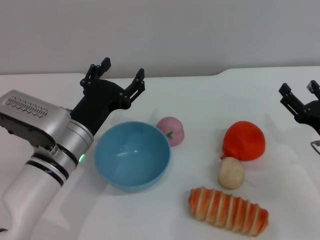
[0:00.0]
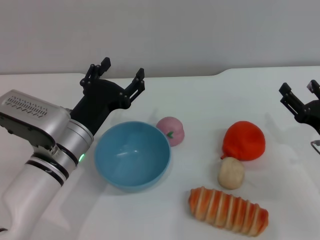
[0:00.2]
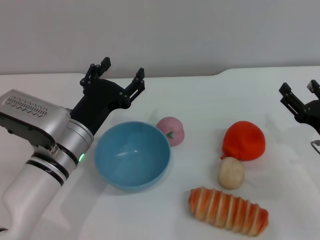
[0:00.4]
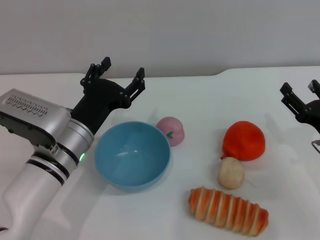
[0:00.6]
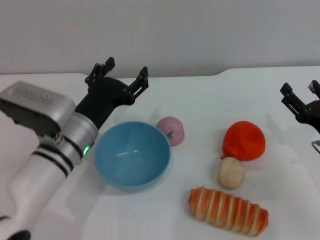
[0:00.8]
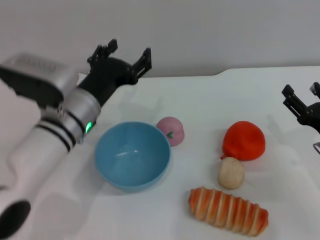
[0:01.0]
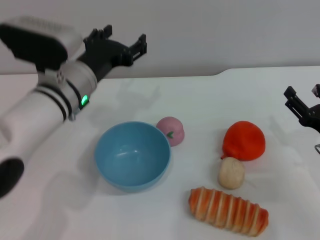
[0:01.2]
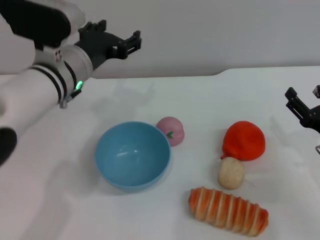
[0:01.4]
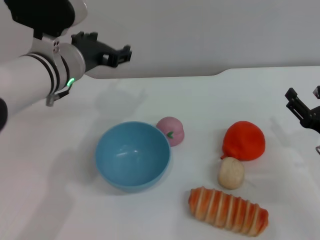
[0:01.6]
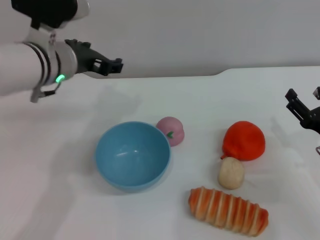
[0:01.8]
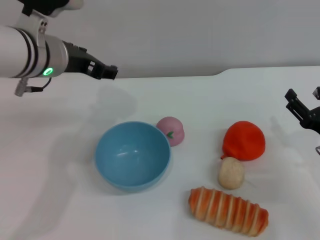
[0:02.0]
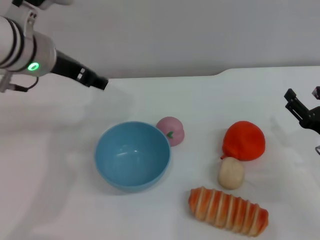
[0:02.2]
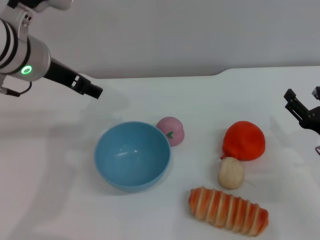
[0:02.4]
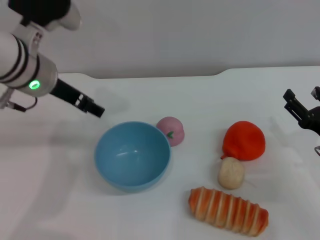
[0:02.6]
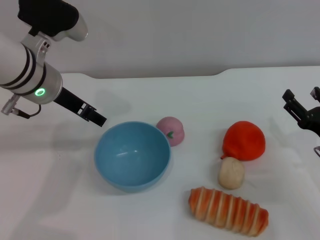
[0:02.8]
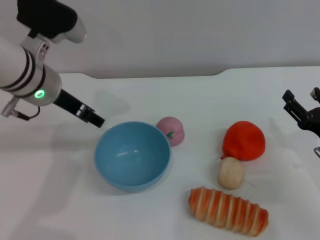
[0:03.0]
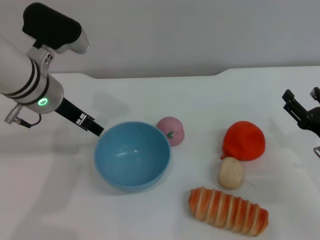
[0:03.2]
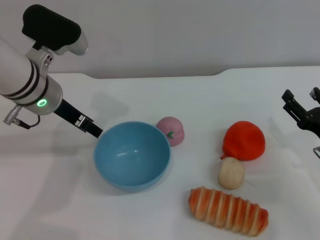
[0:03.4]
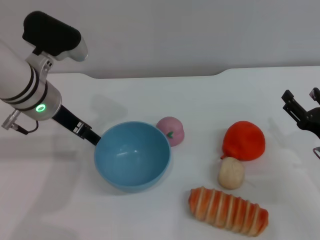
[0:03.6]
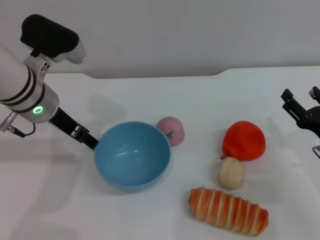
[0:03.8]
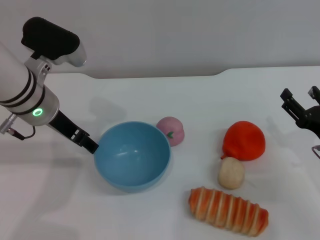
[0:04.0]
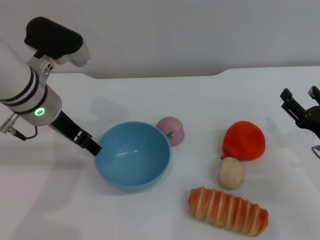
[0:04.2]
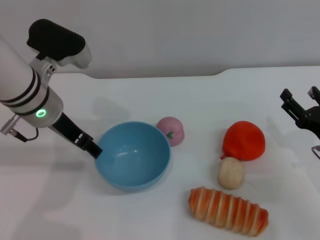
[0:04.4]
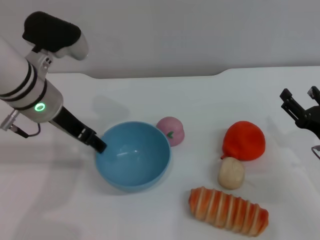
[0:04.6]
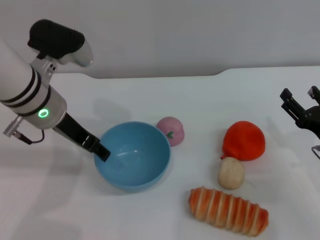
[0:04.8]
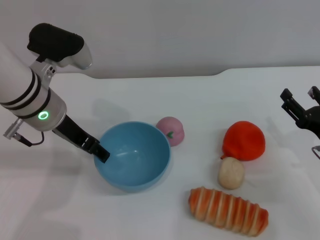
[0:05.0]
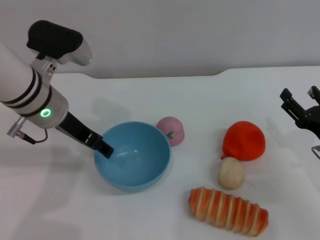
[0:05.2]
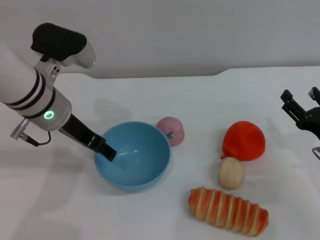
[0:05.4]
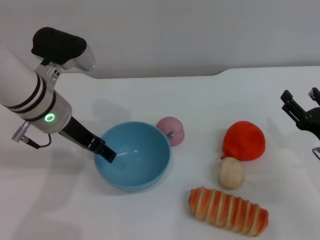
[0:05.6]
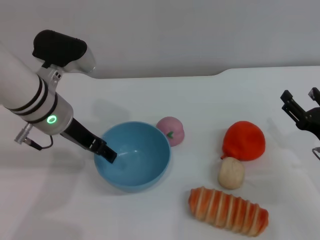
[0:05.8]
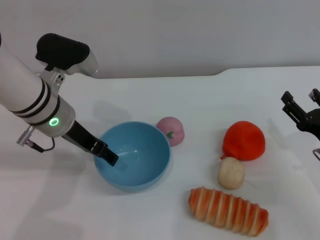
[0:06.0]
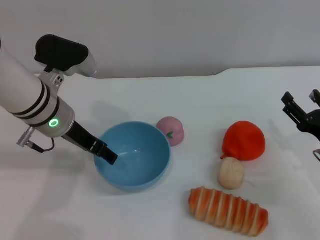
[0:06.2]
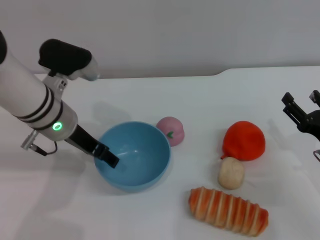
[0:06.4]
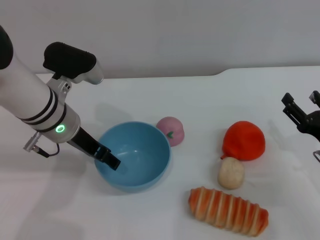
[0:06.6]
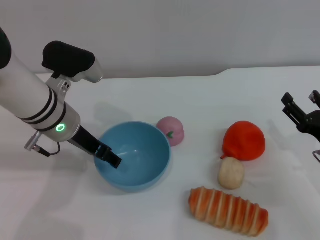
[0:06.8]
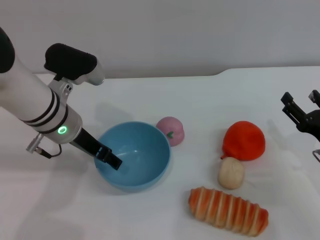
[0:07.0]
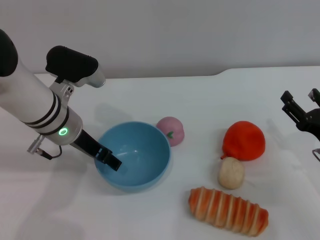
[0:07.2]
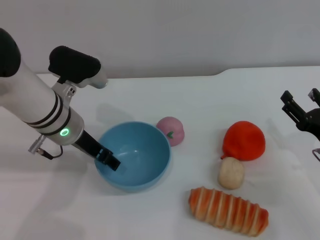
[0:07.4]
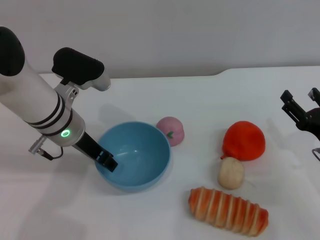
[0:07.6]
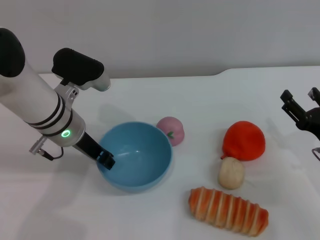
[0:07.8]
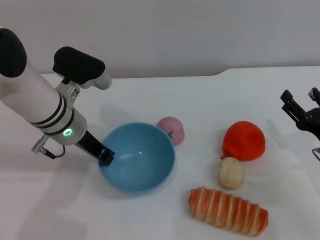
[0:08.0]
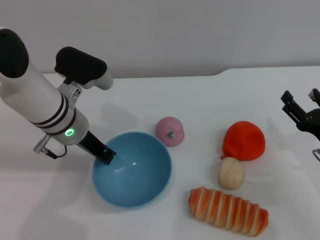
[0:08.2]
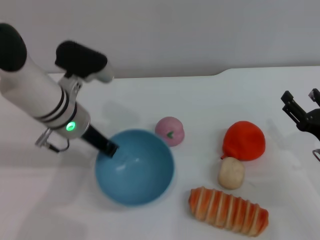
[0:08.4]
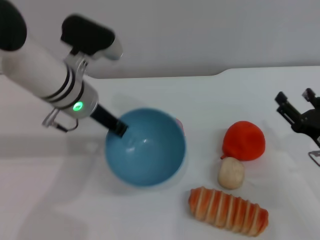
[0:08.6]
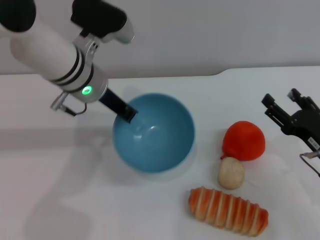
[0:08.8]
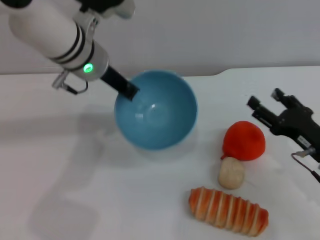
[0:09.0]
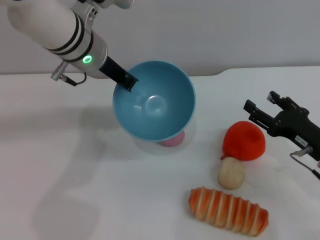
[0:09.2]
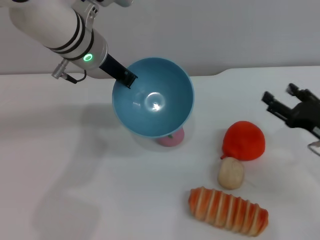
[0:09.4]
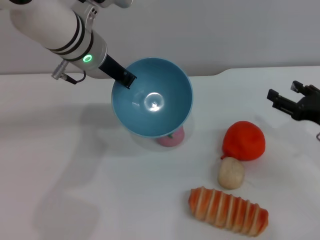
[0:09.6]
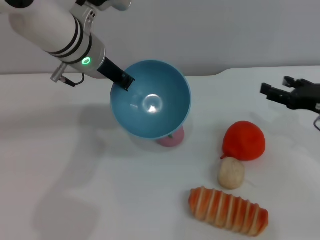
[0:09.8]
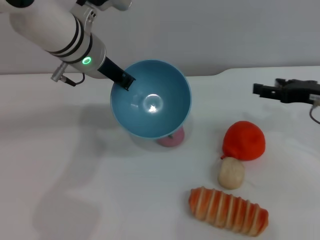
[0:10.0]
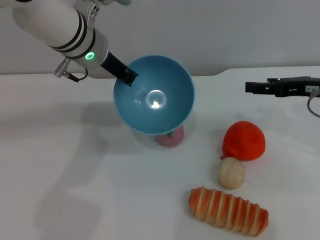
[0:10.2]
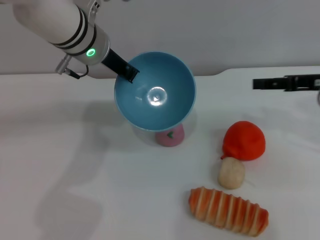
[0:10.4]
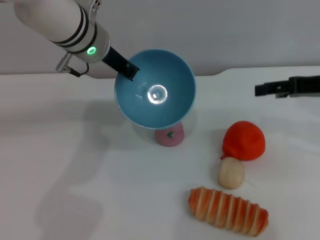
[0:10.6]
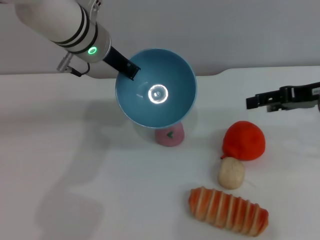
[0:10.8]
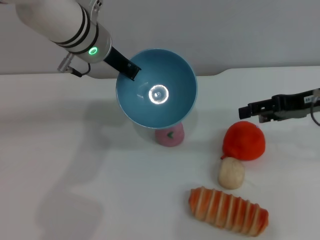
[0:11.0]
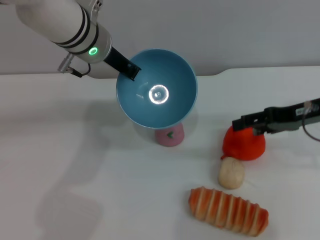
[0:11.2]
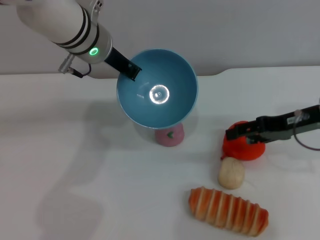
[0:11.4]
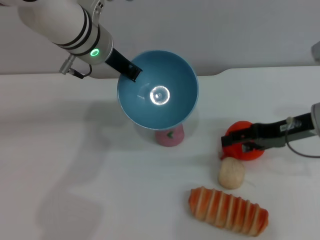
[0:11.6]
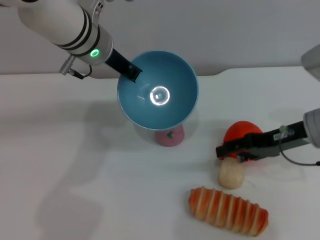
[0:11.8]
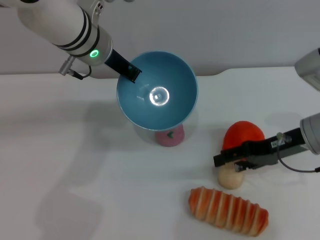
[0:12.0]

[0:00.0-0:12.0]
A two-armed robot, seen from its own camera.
Task of the whole recording: put the egg yolk pastry into the blue bowl and pour it out repeatedly.
Step, 0:00.0 to 0:09.2: Pick up the bowl with the left gripper.
0:00.0 to 0:01.6: The left gripper shifts roughly 15 cm upward and forward.
0:03.0 to 0:06.0: The grippers move only a little.
0:06.0 to 0:07.6: The grippers stay close to where they were, moving slightly.
0:07.6 to 0:09.0: The left gripper shifts roughly 10 cm upward, and closes.
0:09.0 to 0:10.4: The right gripper moves upward and forward, about 15 cm.
0:10.4 to 0:12.0: The right gripper is displaced downward and to the left by roughly 10 cm.

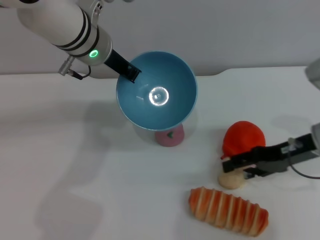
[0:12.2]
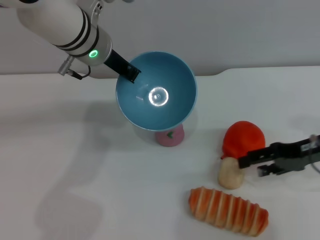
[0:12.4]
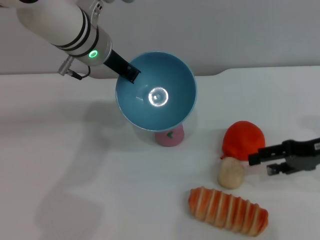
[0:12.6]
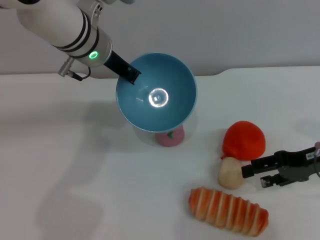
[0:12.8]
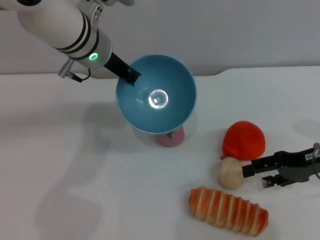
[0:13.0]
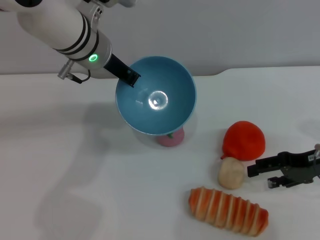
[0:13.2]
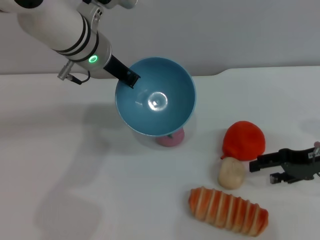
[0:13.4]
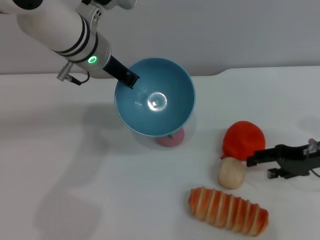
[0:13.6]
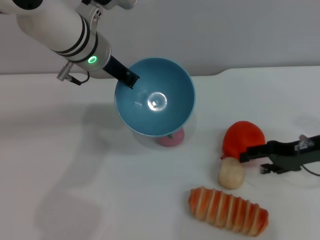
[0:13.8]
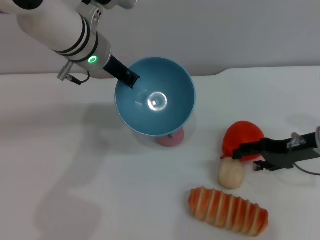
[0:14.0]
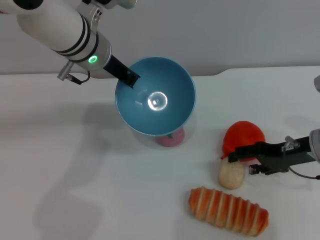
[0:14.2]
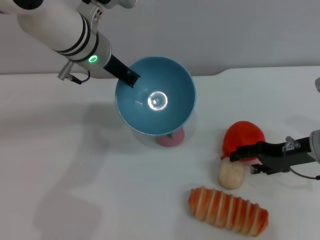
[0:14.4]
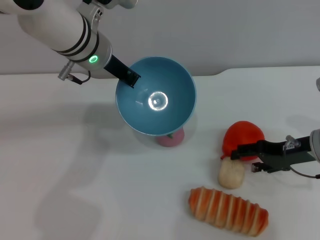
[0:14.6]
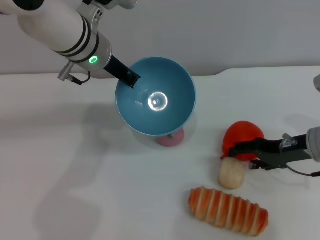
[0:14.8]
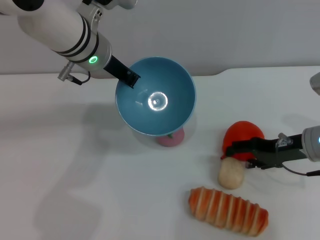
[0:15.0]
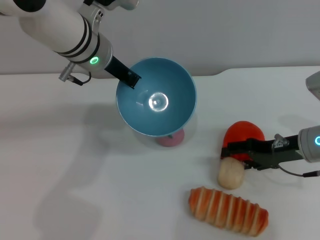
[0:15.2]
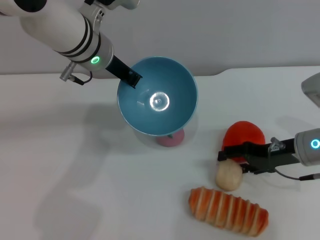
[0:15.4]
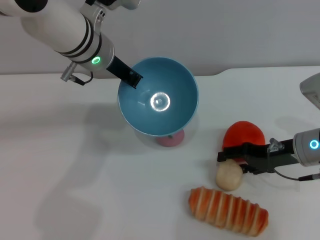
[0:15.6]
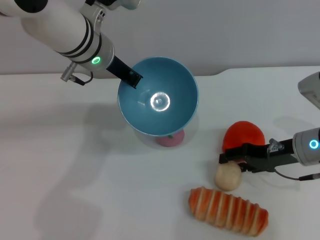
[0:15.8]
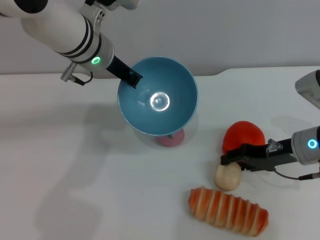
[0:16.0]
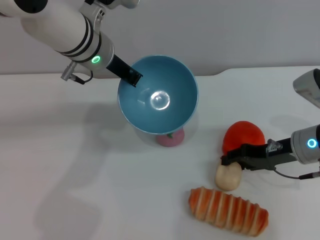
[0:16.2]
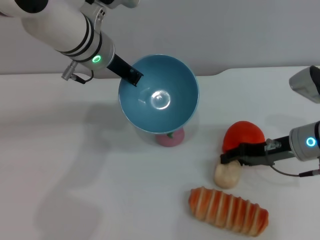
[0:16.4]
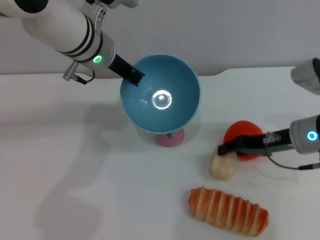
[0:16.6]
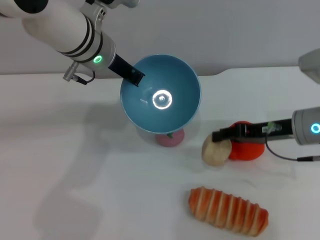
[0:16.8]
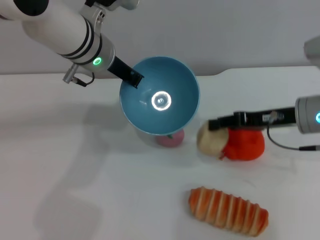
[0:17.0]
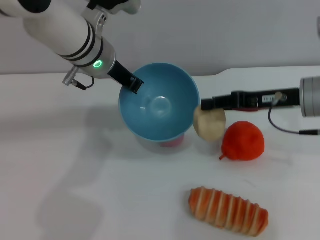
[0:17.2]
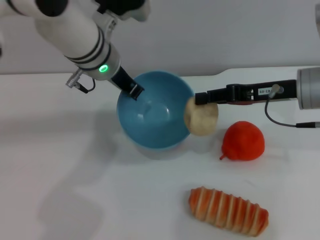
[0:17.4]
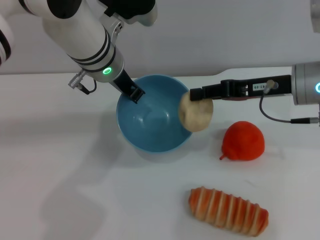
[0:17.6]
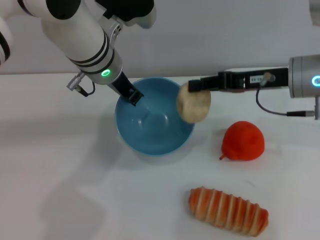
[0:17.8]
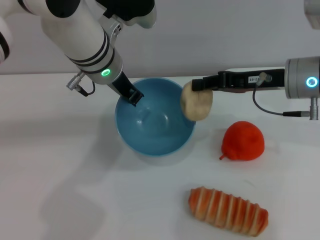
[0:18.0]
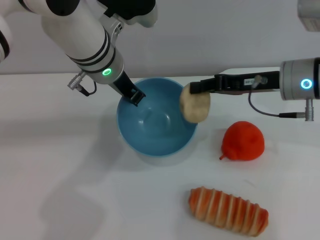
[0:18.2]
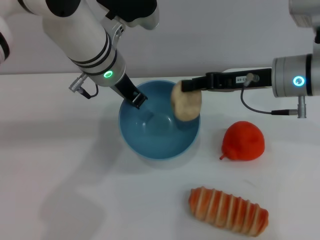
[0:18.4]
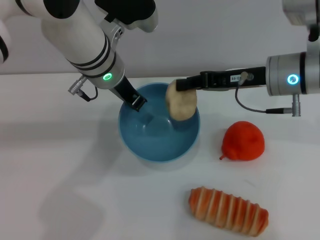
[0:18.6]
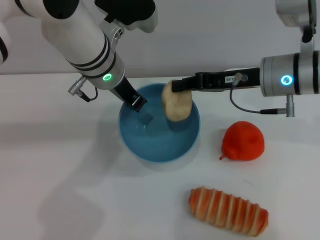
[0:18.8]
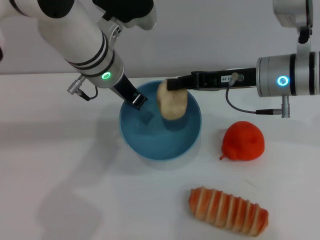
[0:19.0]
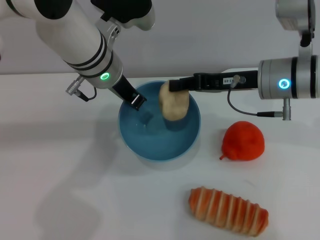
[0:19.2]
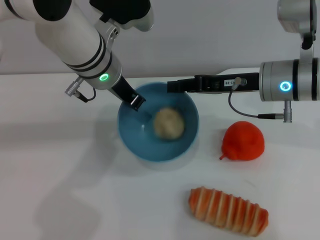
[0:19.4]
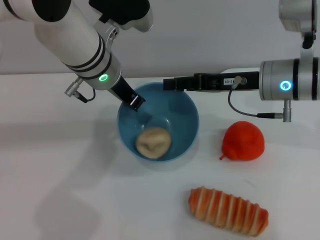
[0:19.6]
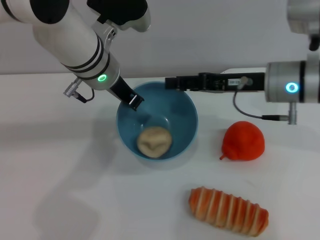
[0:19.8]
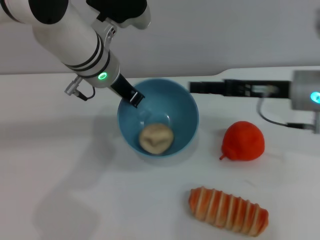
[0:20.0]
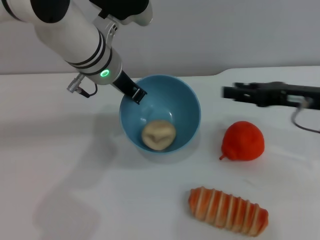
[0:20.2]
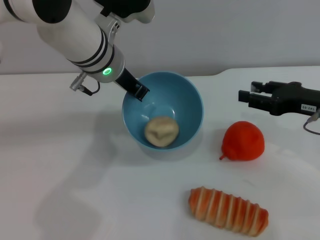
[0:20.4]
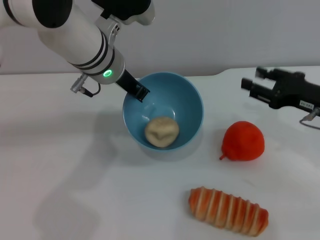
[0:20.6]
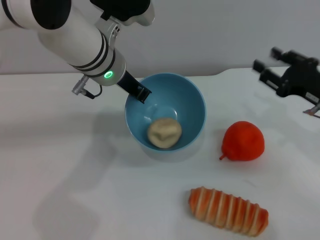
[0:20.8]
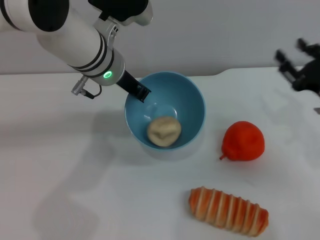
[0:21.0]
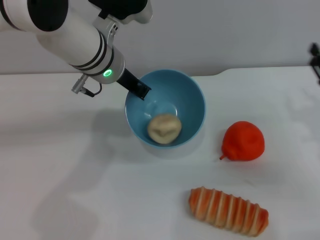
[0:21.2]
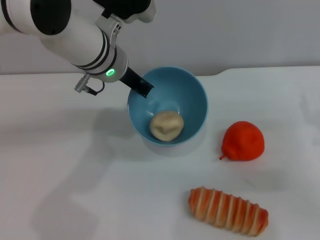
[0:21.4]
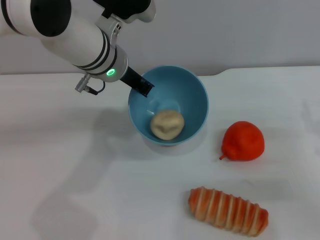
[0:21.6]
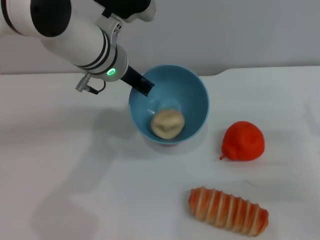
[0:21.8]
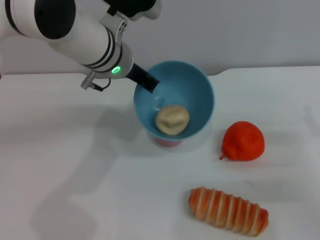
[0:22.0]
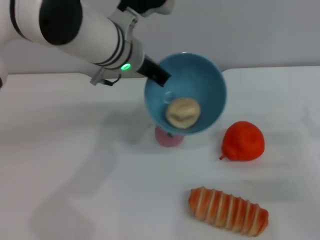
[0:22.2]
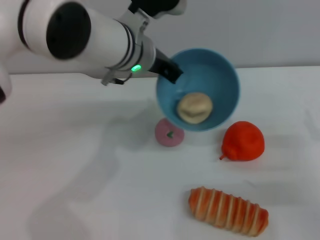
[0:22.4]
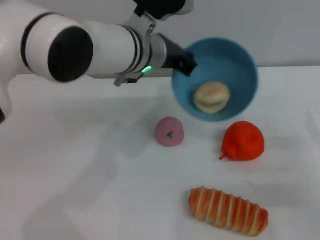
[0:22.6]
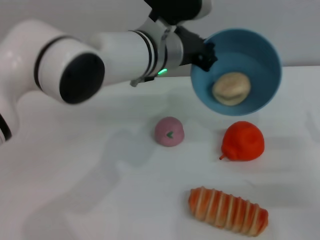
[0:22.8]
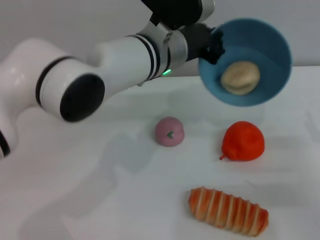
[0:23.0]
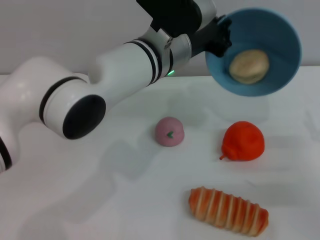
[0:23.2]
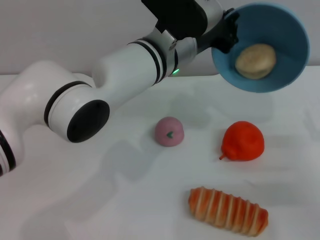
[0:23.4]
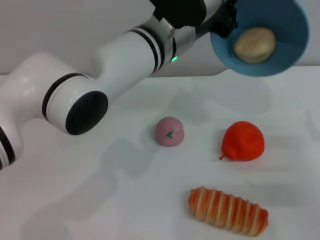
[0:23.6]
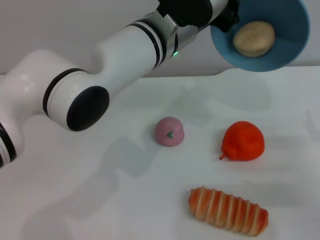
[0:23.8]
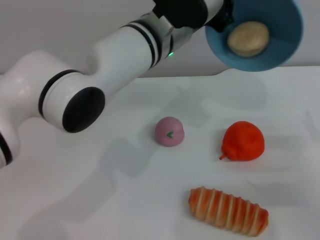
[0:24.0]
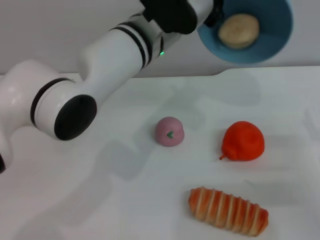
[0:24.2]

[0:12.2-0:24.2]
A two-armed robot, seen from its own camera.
Task of the whole recording: put the egg yolk pastry into the blue bowl and pour it out repeatedly.
Step, 0:12.2 to 0:16.8: Pick up the egg yolk pastry with the right gripper.
Step, 0:17.2 to 0:19.8: Place the egg yolk pastry into the bowl.
0:12.2 to 0:15.2: There are only small adjustments of the grippers.
0:15.2 to 0:16.6: The right gripper closes.
0:16.6 to 0:18.2: The right gripper shifts about 10 cm upward, and closes.
0:18.2 to 0:19.8: The right gripper opens up.
0:19.8 to 0:21.2: The right gripper heads to the right, downward and backward, covering roughly 15 cm.
0:21.2 to 0:22.6: The right gripper moves roughly 5 cm, while the left gripper ends up roughly 5 cm from where it was.
